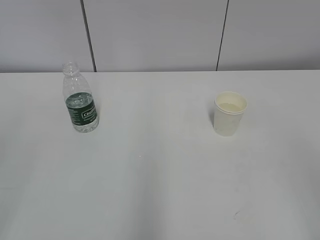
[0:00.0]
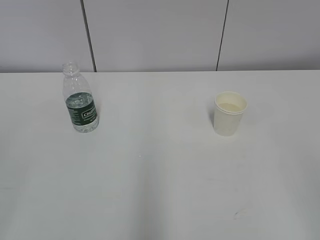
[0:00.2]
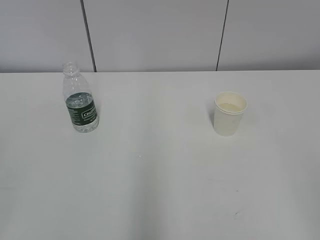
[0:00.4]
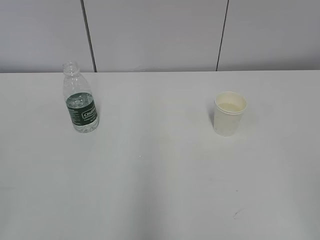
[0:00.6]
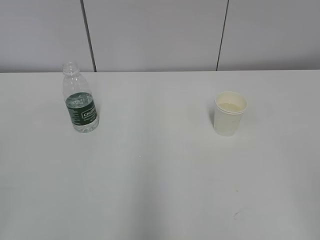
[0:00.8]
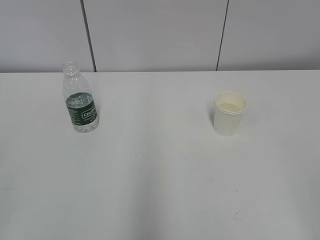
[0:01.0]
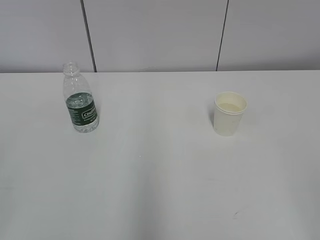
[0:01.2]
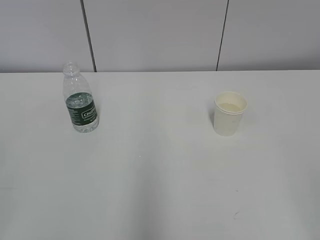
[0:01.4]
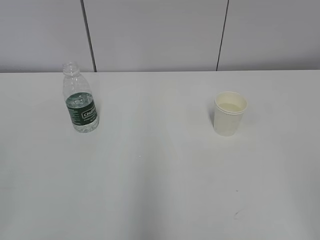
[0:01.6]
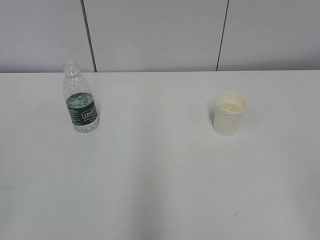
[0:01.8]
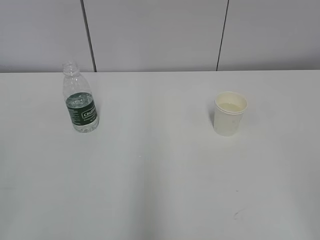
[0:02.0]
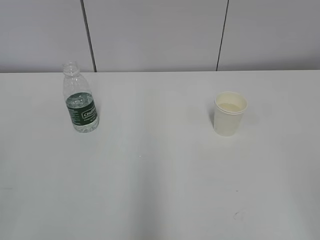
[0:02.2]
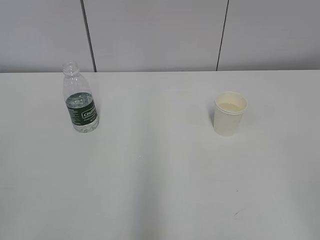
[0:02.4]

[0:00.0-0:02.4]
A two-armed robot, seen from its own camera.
0:01.2 to 0:02.4: Neither gripper changes place.
